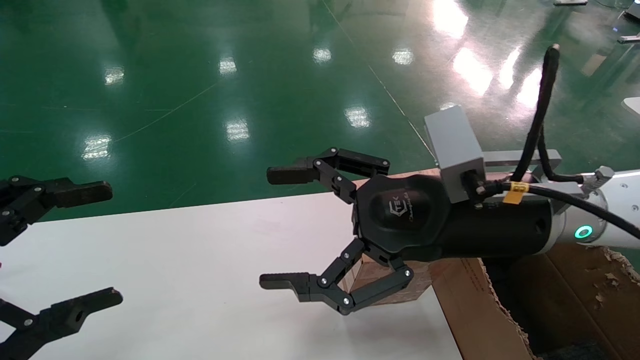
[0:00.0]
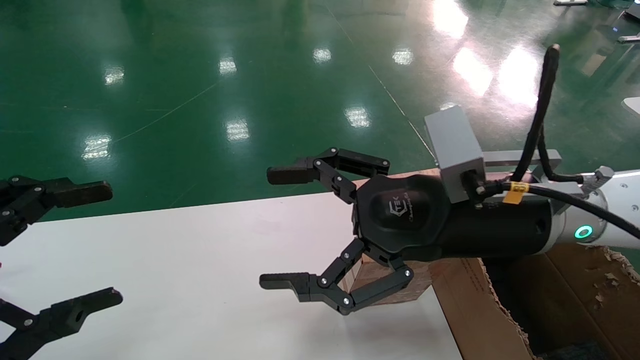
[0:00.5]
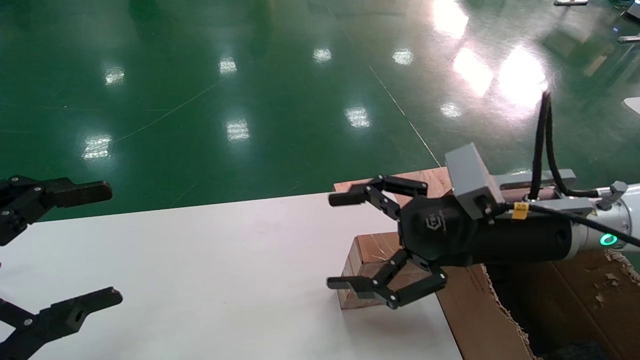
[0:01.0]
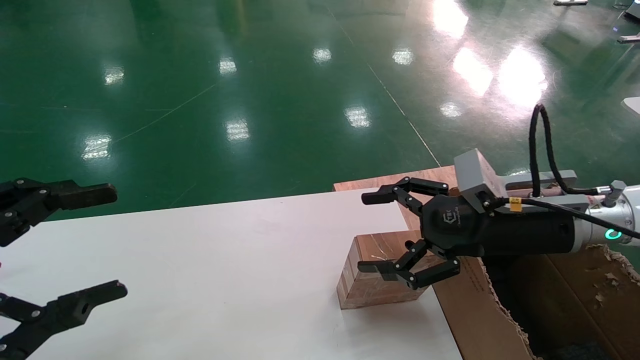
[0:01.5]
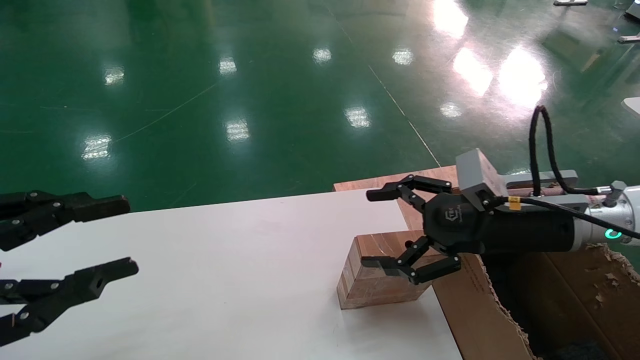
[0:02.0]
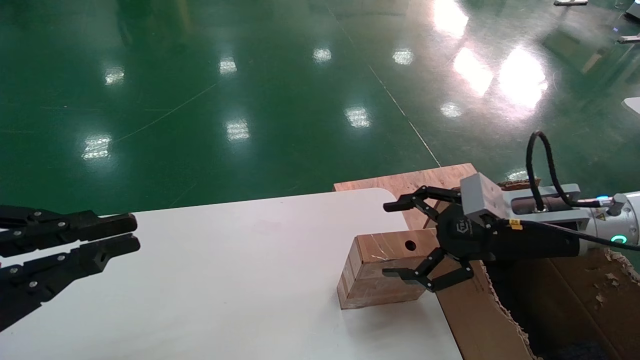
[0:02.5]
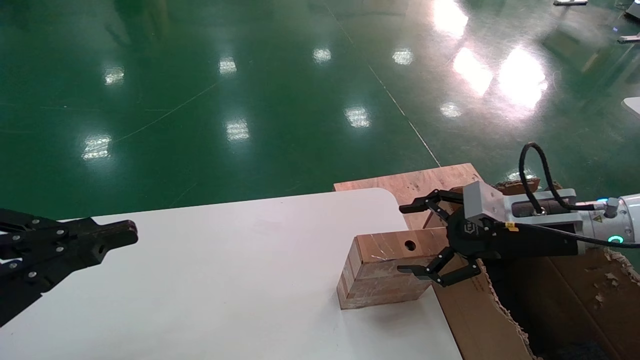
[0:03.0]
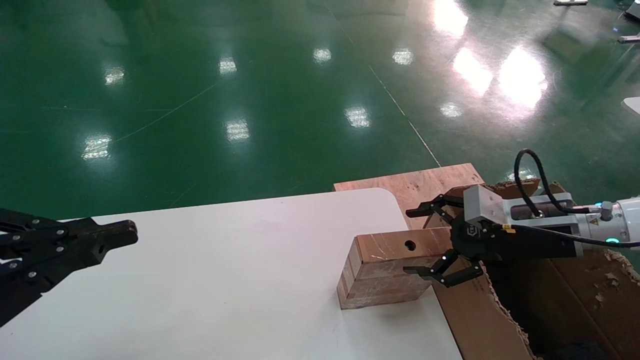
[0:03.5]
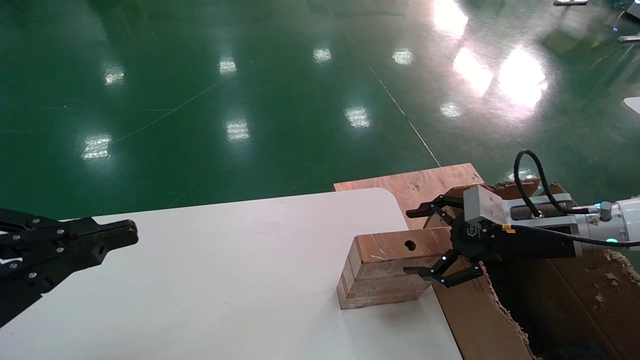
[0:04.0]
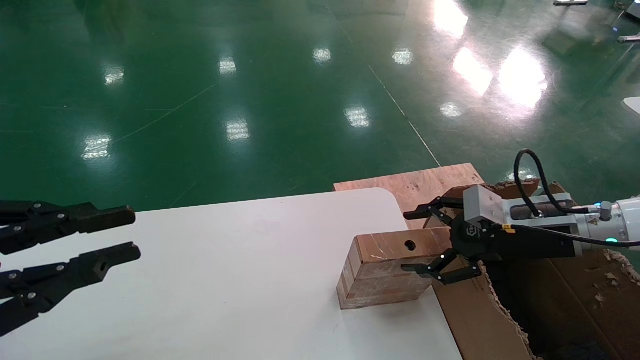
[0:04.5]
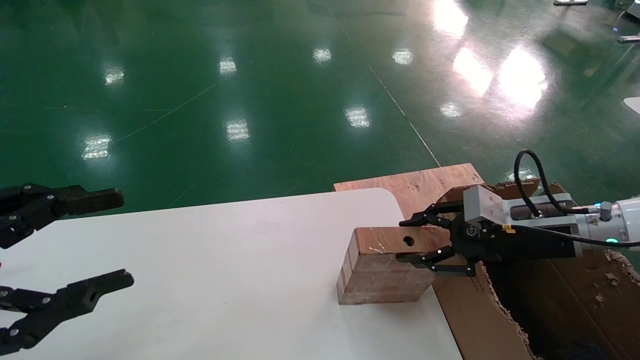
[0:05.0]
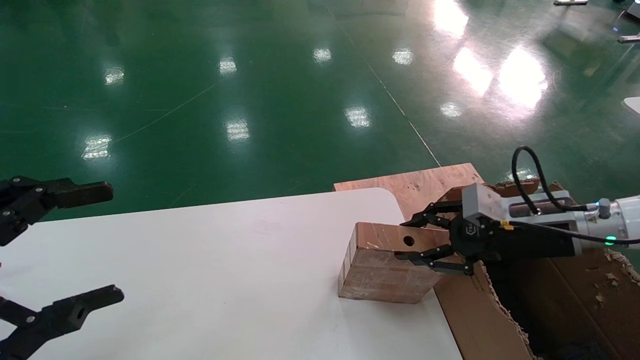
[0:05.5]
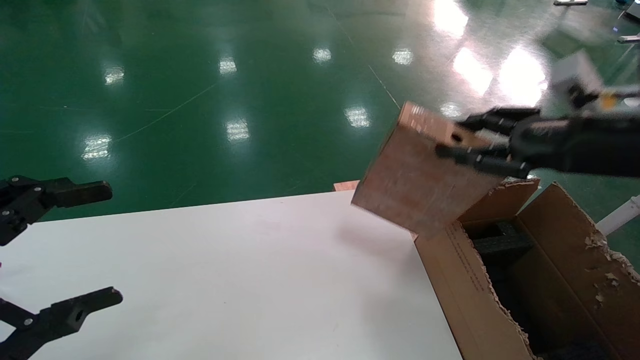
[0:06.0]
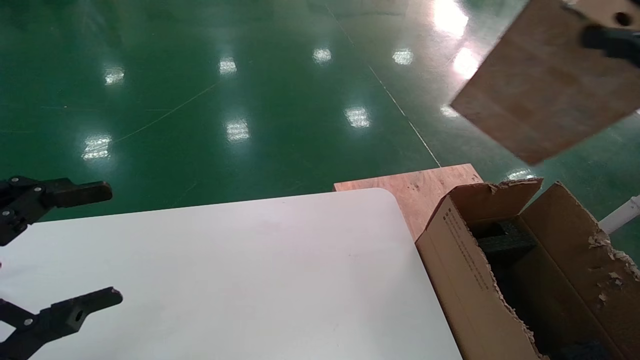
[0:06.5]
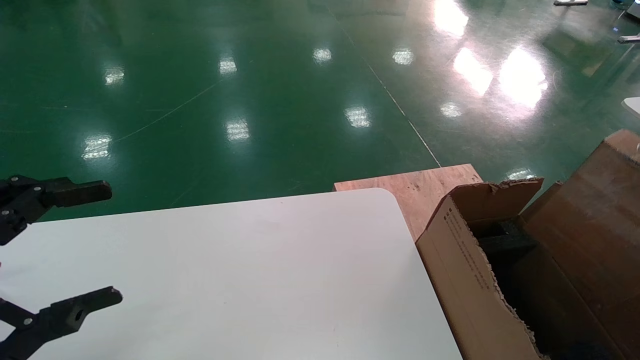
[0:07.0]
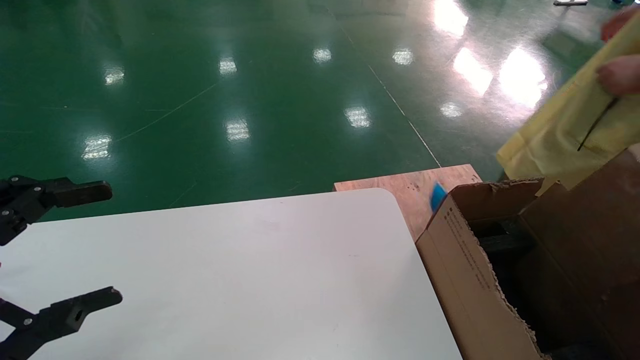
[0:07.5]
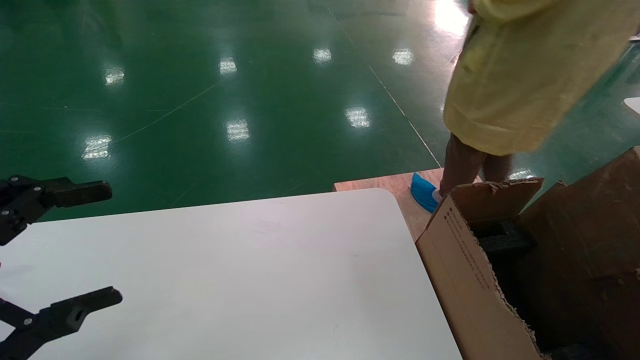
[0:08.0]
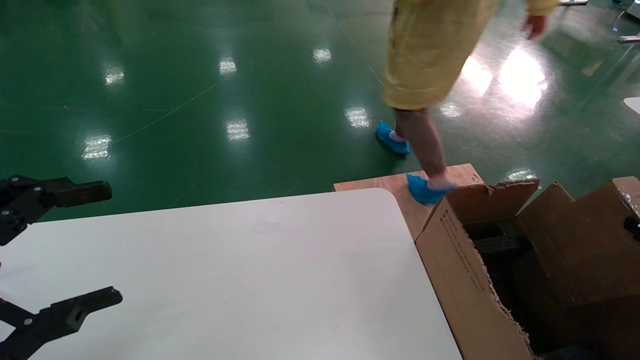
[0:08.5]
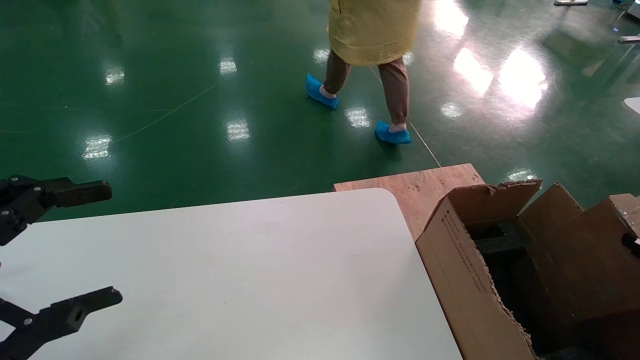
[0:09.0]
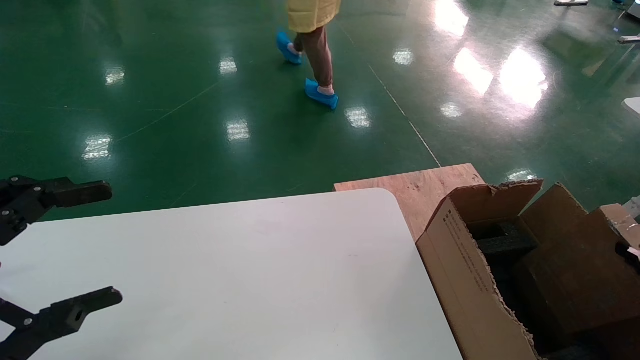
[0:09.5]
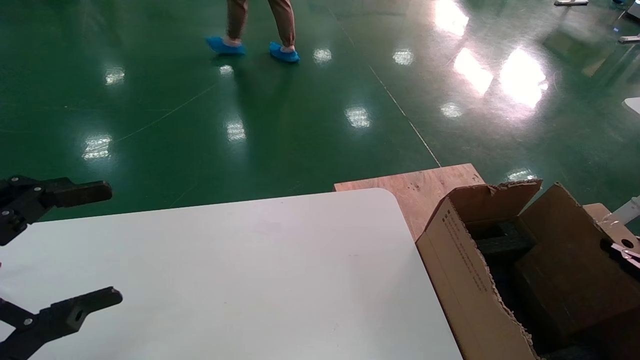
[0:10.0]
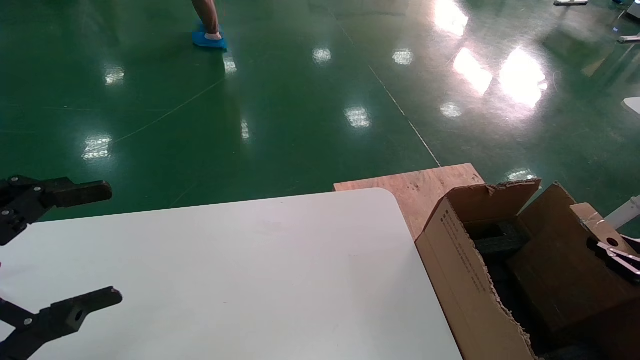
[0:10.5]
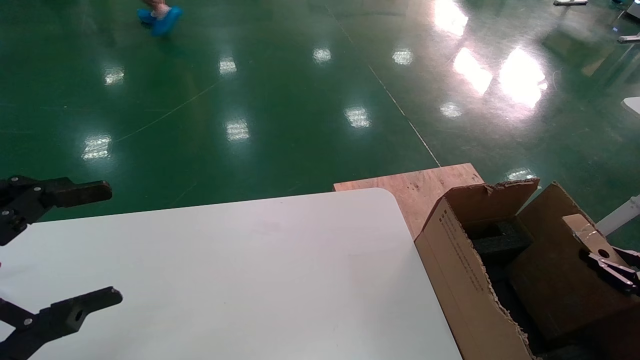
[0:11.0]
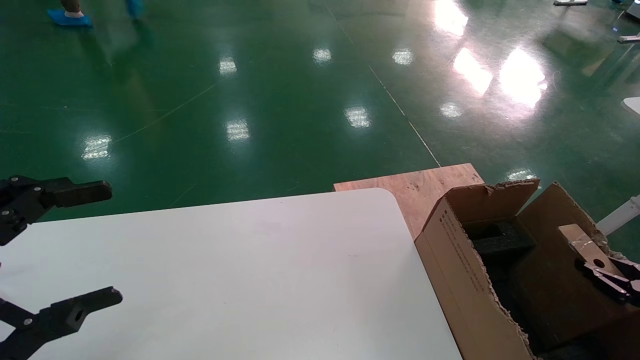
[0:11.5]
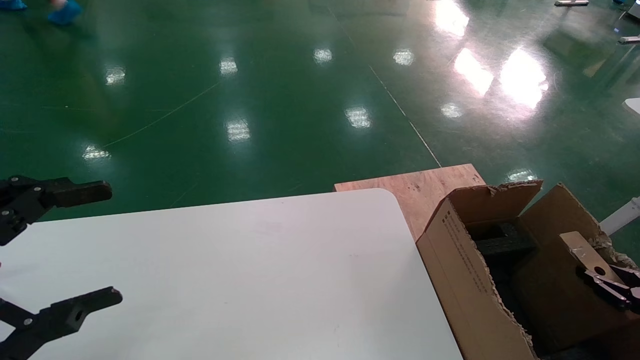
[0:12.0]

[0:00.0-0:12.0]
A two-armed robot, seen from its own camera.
Task of the whole recording: put the box on the table into the big box.
Step, 0:01.5 to 0:05.0: Pick up the mouse and the power cord paper box.
0:00.0 to 0:02.0: The left gripper closes its fingers. Meanwhile the right gripper goes about 10 cm to the right.
0:02.0 to 0:04.0: The right gripper goes about 5 cm to the right; the left gripper closes.
0:04.0 to 0:06.0: The left gripper opens its fingers. Meanwhile the right gripper travels upward by about 15 cm, and closes its fingers.
0:06.0 to 0:08.0: The right gripper is displaced downward, backward and to the right by about 25 cm.
0:08.0 to 0:10.0: The right gripper goes approximately 10 cm downward.
0:10.0 to 0:12.0: The right gripper moves downward, some 5 cm.

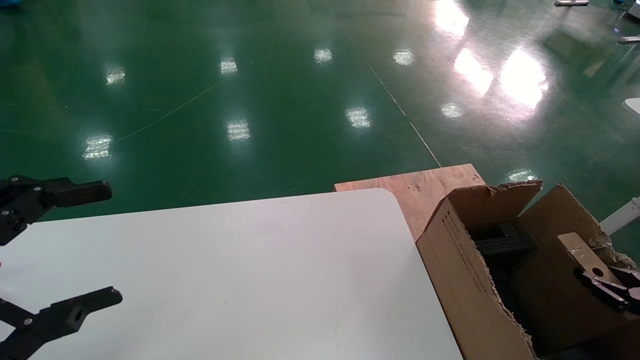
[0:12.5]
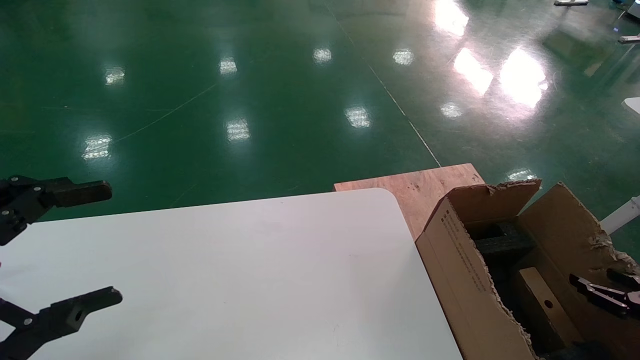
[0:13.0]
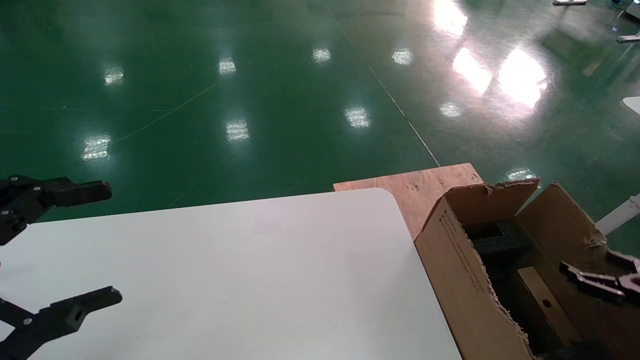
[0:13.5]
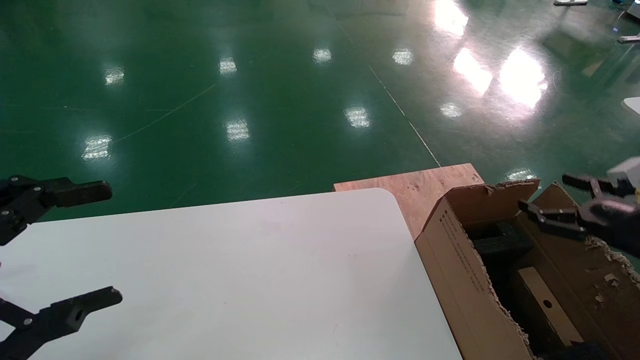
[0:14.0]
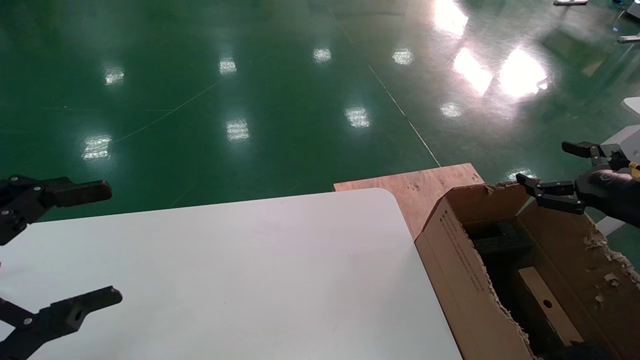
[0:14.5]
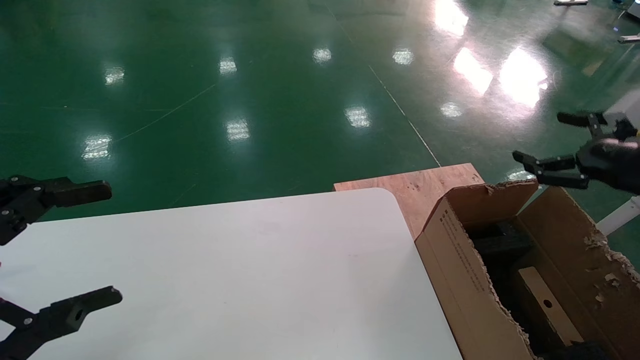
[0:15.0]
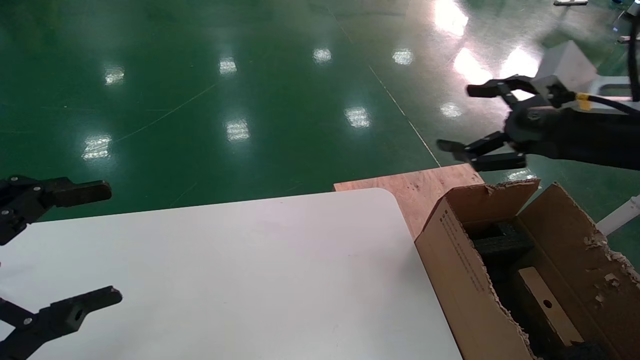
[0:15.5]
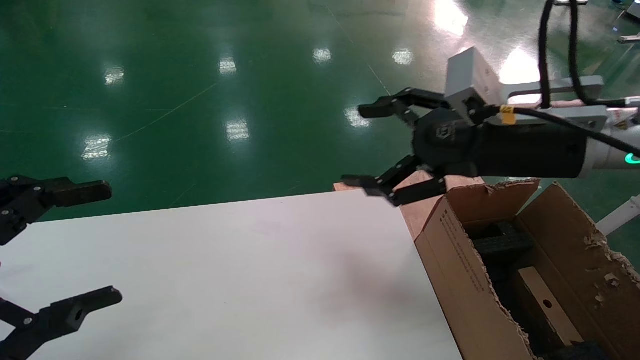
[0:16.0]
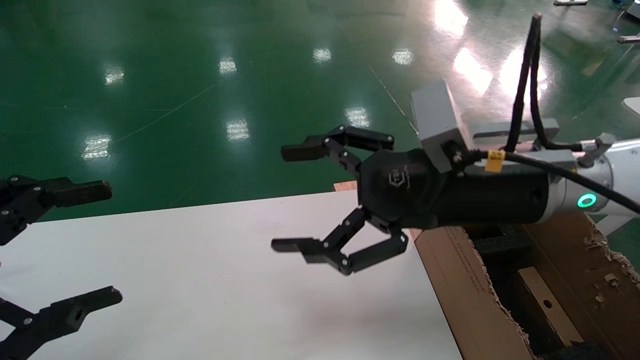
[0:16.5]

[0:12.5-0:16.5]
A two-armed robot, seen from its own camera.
Task of the whole recording: put the box on the table into the big box.
0:12.5 to 0:14.5: The right gripper travels upward and to the left by approximately 20 cm, and opens up.
0:14.5 to 0:16.5: The right gripper travels to the left by some 30 cm.
